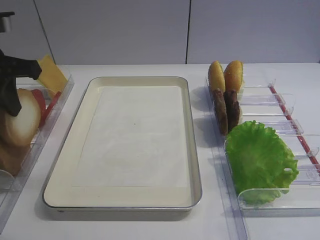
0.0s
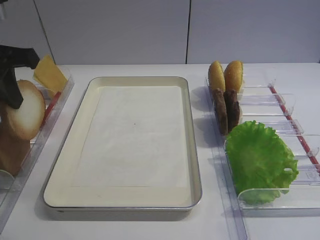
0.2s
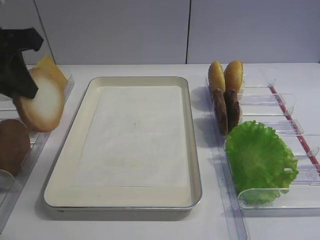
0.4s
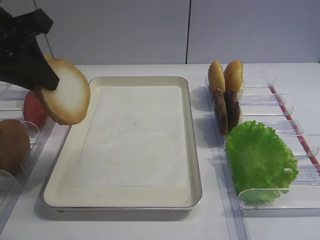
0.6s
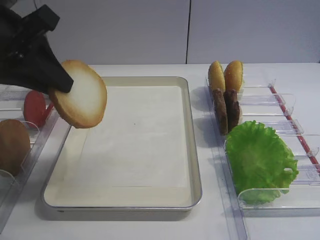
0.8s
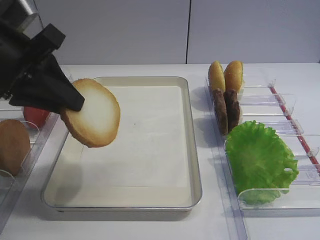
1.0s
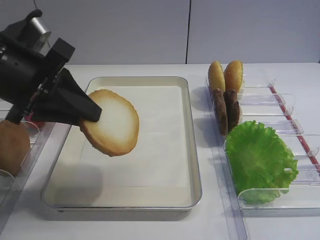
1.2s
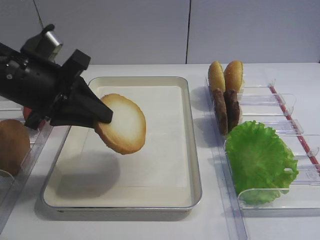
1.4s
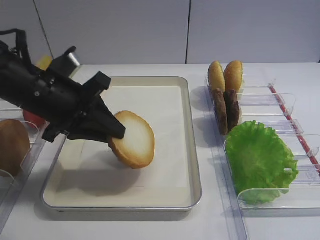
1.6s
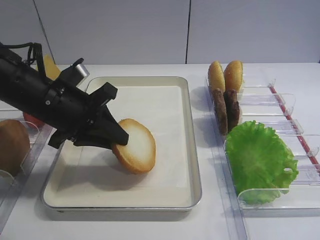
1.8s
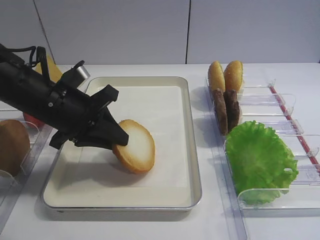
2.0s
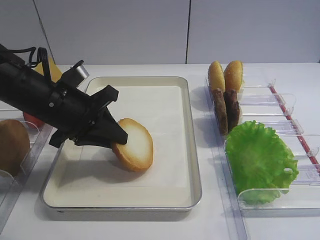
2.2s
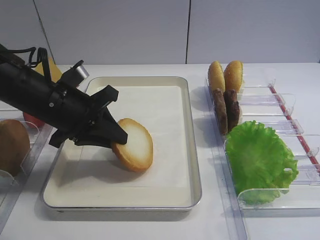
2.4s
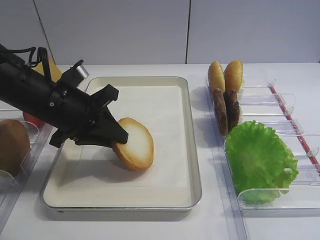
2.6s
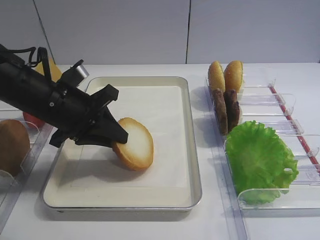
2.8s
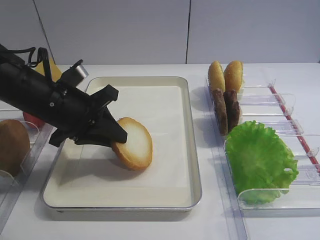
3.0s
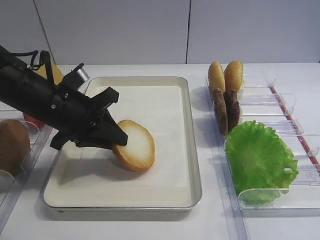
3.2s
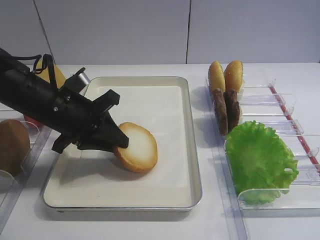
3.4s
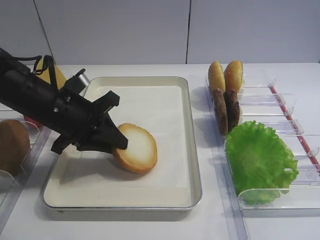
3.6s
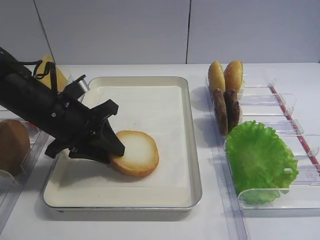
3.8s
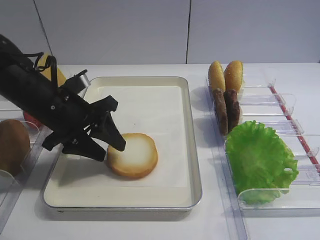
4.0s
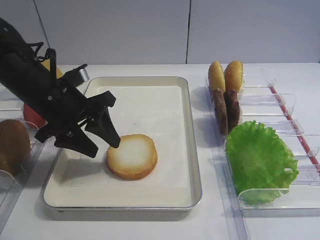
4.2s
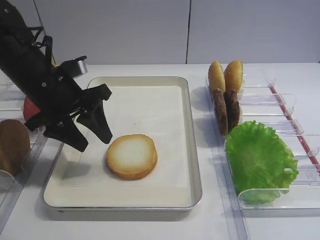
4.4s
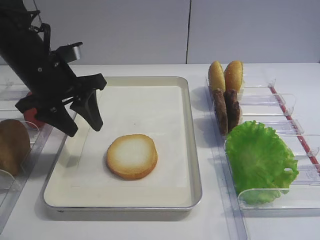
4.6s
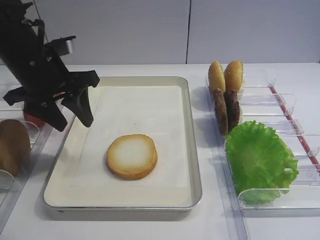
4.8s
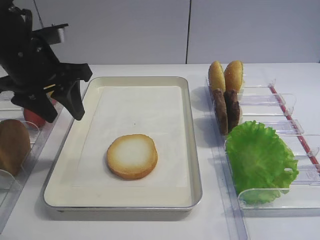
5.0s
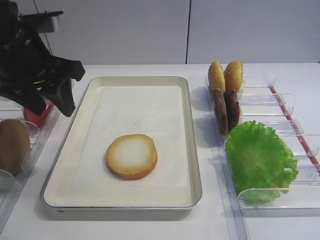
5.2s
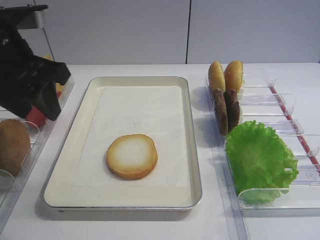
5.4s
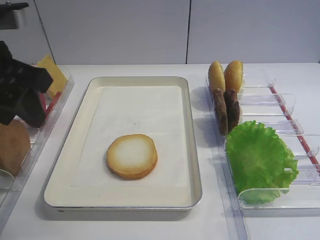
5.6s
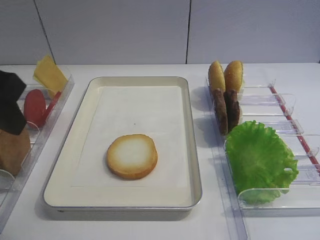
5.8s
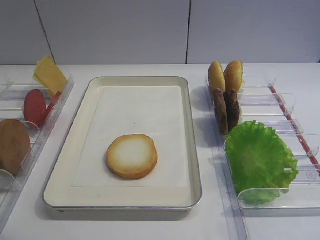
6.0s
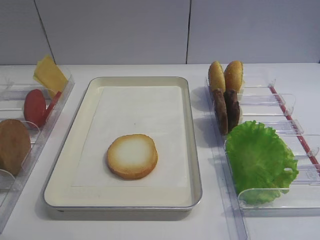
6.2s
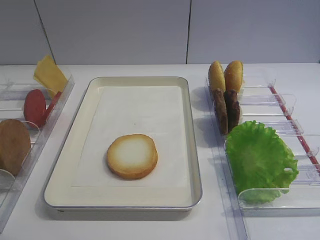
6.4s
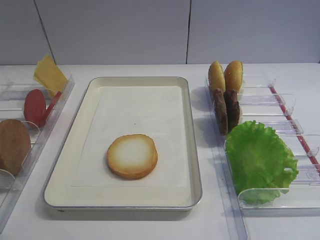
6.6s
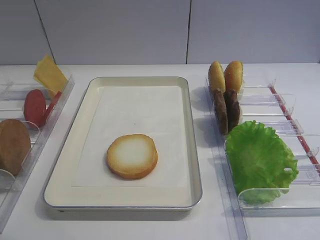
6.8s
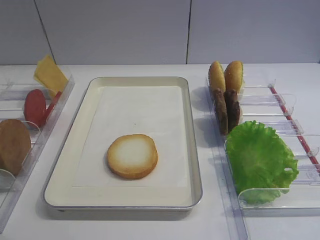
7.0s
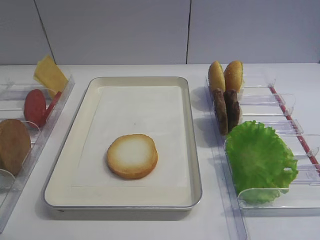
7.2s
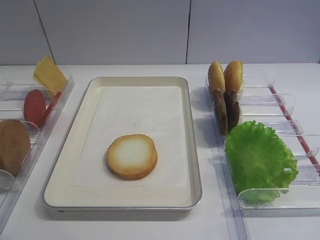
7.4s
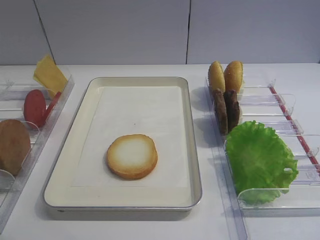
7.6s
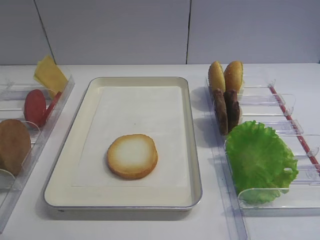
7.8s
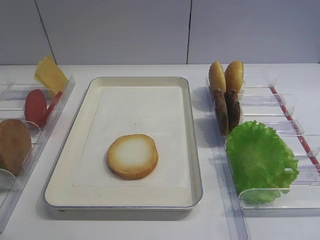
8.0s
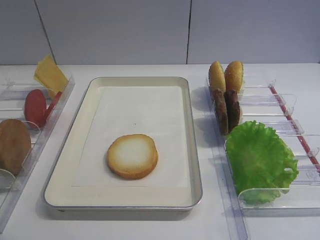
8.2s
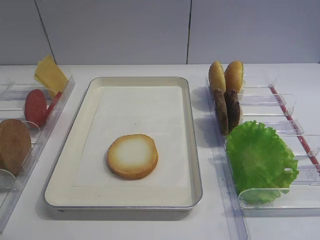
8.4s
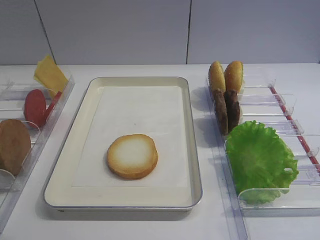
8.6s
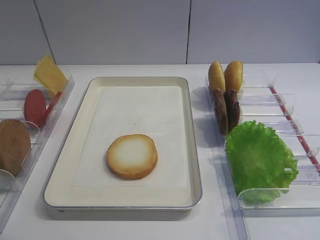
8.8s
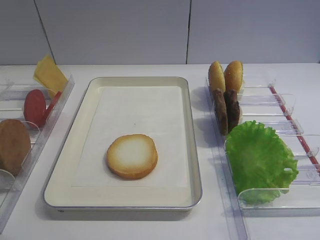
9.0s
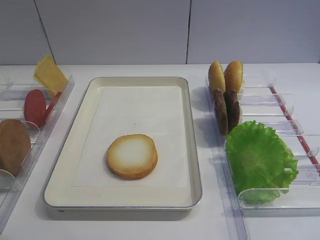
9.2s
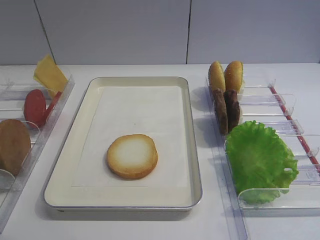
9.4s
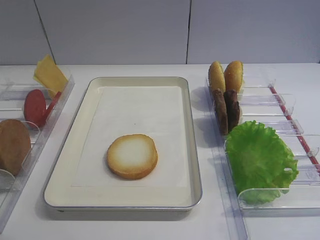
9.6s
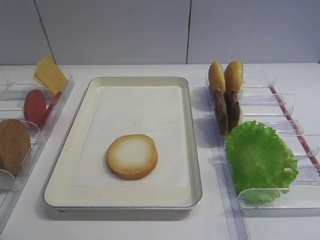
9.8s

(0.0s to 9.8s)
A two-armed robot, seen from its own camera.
Step, 0.0s - 5.4s: Place the bread slice on the tray with the left gripper.
0.0s - 1.4s: The left gripper moves to the right, approximately 5 cm.
1.4s - 2.8s: The left gripper shifts about 5 cm downward.
2.8s - 4.2s: The left gripper opens up.
4.2s - 5.6s: The left gripper shifts some 15 cm upward and backward.
5.6s - 7.0s: The left gripper travels backward by approximately 25 cm.
8.4s - 9.8s: Both grippers stay put.
